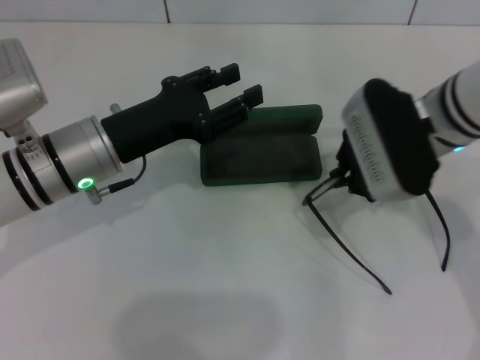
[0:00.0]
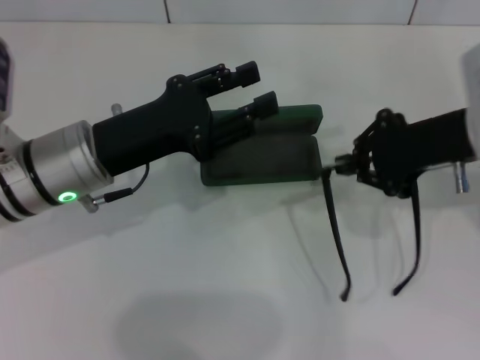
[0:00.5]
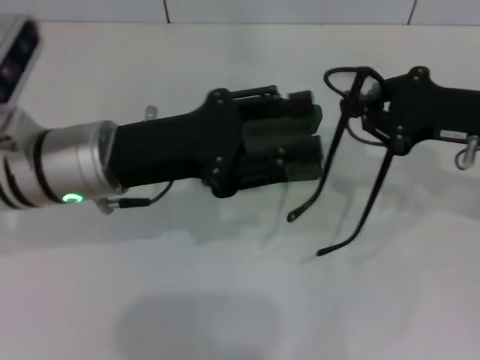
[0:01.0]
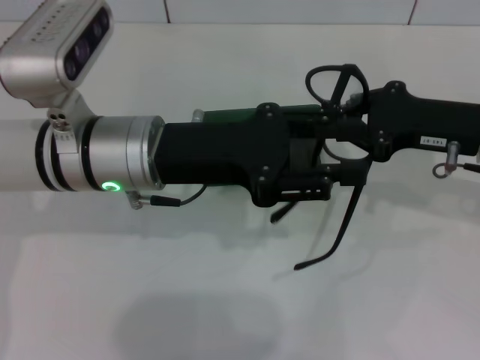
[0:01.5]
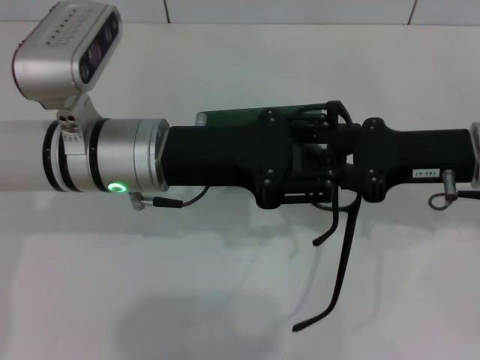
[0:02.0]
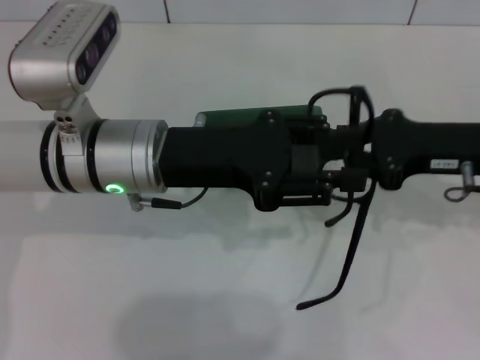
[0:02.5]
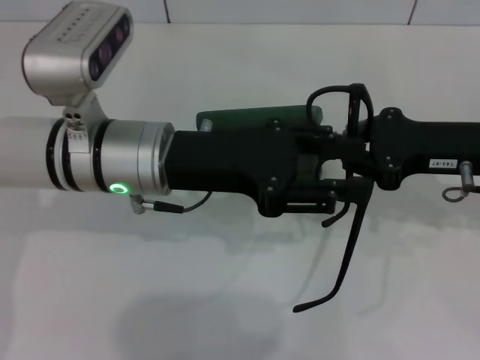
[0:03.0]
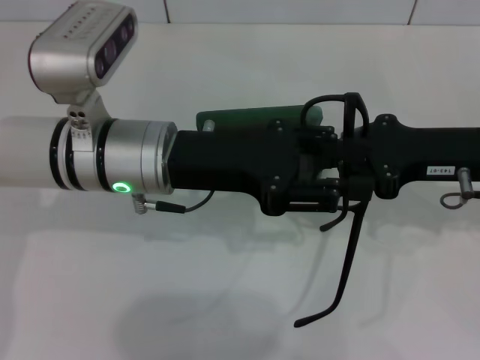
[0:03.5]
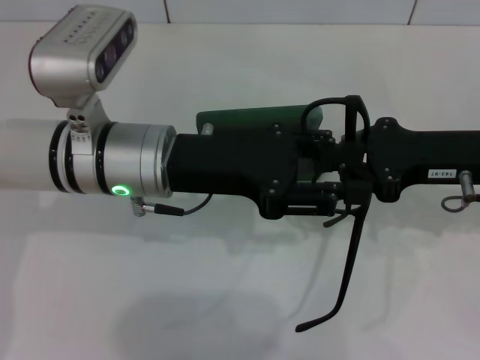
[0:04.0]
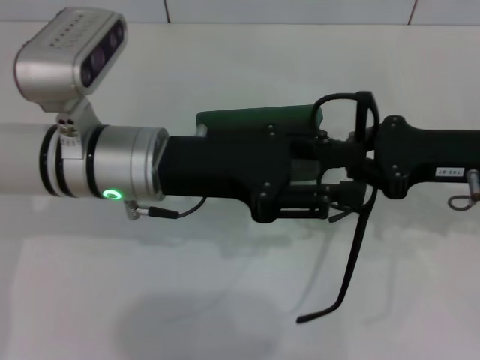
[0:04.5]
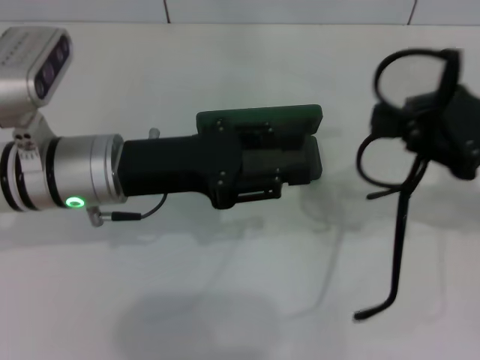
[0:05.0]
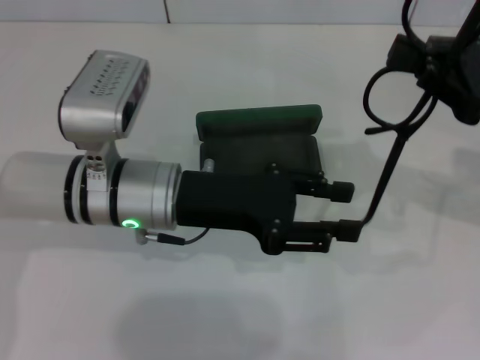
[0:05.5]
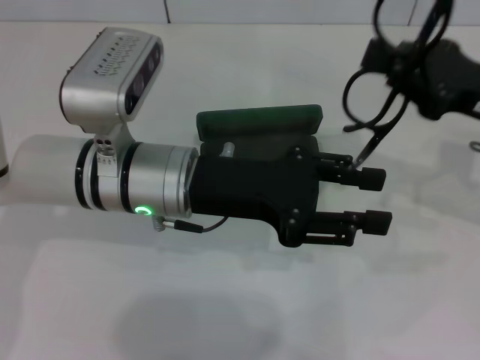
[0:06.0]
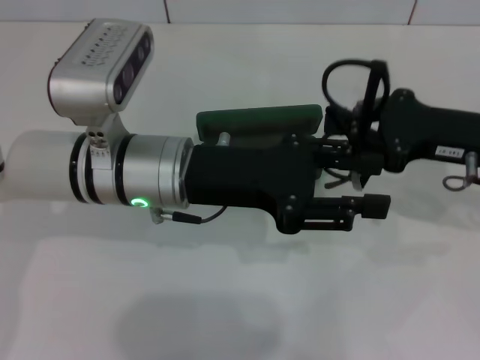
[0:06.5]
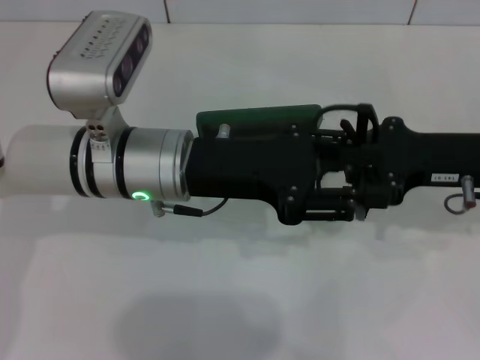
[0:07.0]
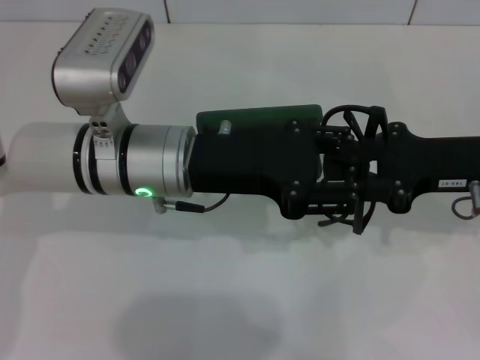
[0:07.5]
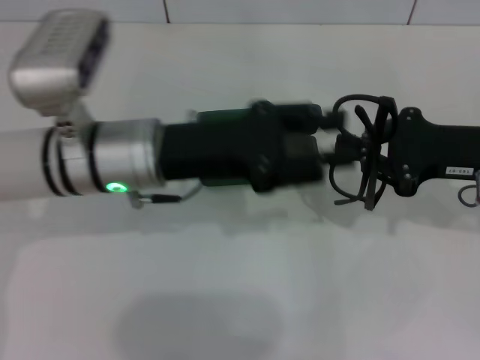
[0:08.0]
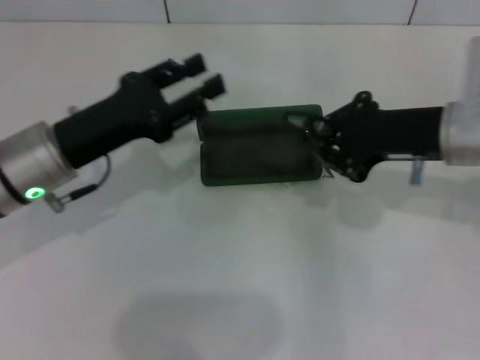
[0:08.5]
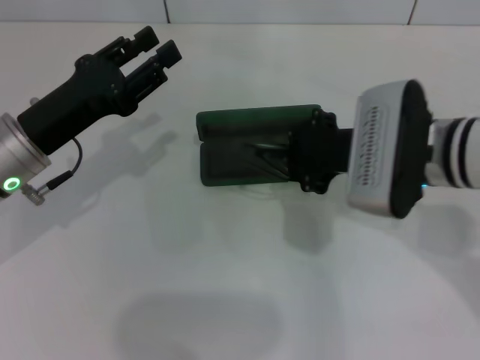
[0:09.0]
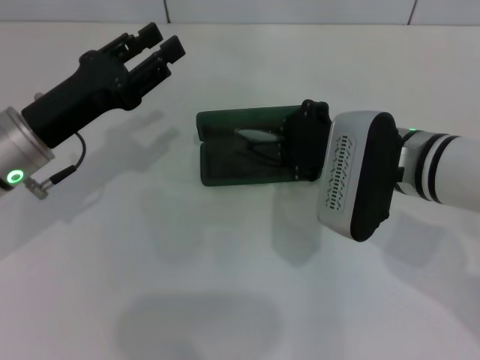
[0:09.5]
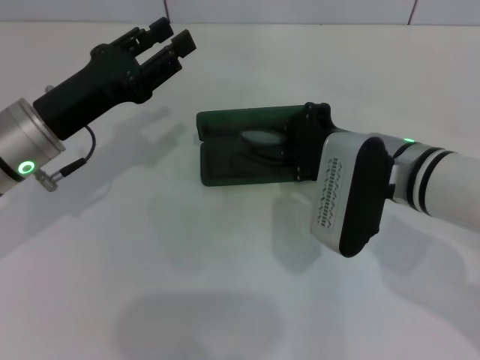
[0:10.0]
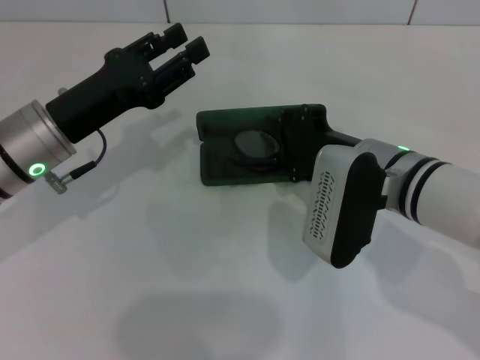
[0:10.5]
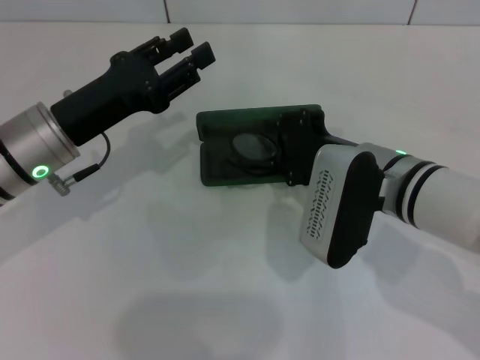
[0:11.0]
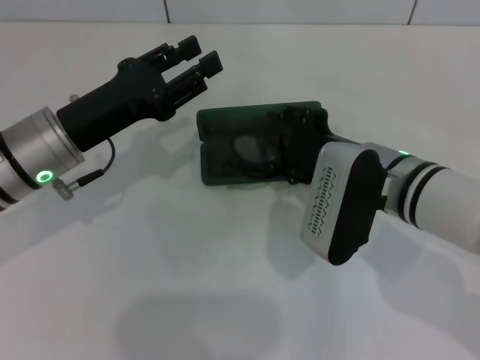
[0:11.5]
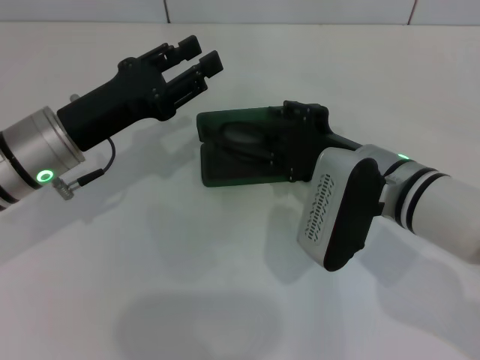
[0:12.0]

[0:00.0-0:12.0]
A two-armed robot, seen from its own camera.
Step, 0:00.0 to 0:07.0: Fold the frame with your left hand.
0:00.0 to 0:02.0: The grippers both shift to the right by about 5 cm.
0:02.0 to 0:04.0: There are only small adjustments of the grippers.
0:08.0 to 0:10.0: The grippers both shift to the left by roughly 10 cm.
0:10.0 to 0:12.0: The right gripper opens up.

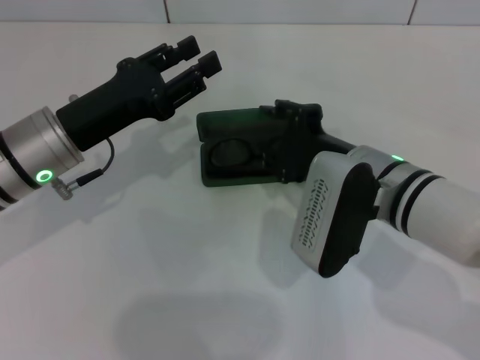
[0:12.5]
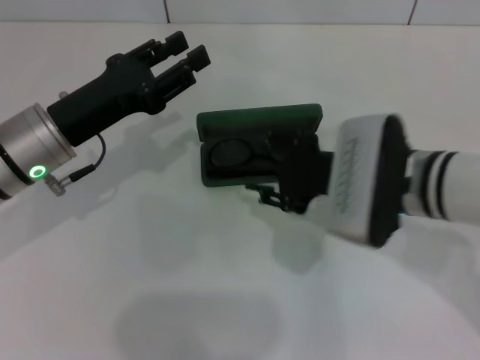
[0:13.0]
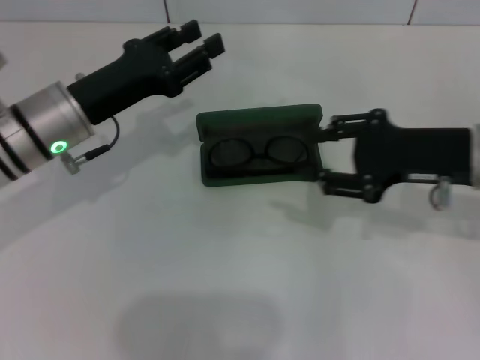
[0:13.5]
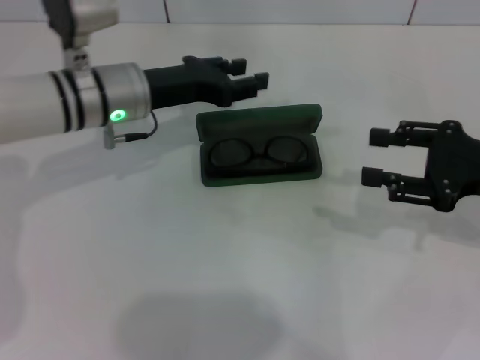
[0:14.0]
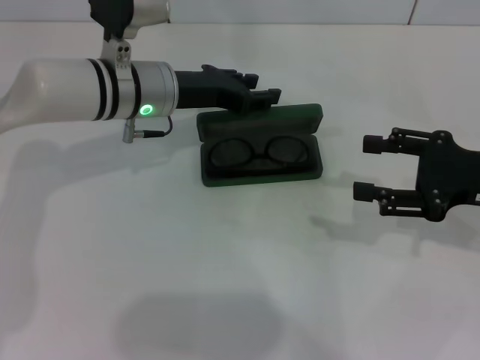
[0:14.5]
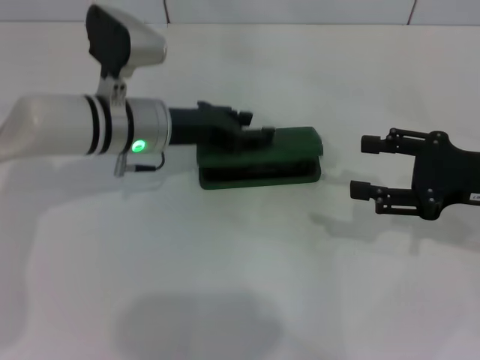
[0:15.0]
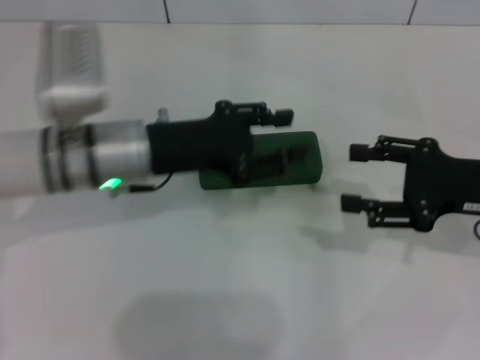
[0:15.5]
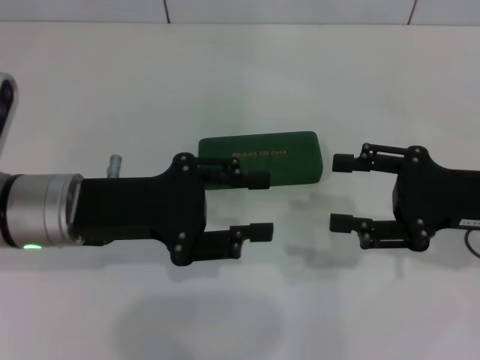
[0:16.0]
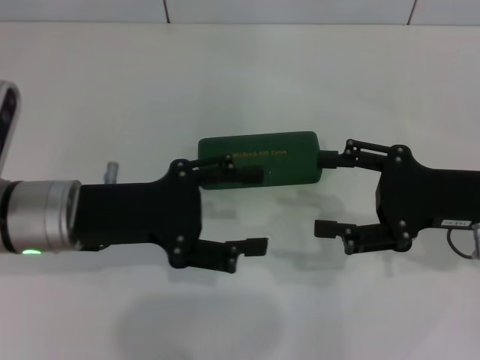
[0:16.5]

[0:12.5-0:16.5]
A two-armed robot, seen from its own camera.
Step, 0:12.5 to 0:15.0: Close the glasses case with your left hand.
0:12.5 to 0:14.5: The left gripper heads forward and to the right, covering about 10 cm, while the right gripper heads to the right, covering roughly 15 cm.
0:14.5 to 0:16.5: The left gripper travels backward and to the left by some 15 cm, and opens up.

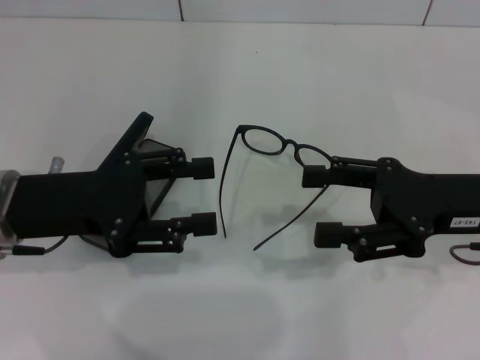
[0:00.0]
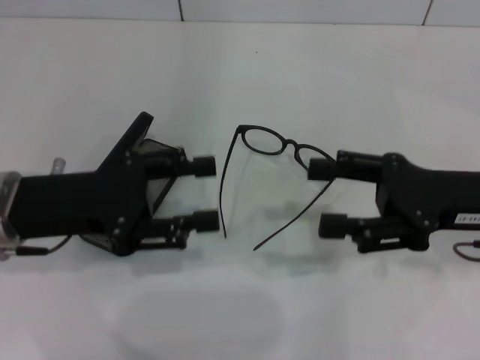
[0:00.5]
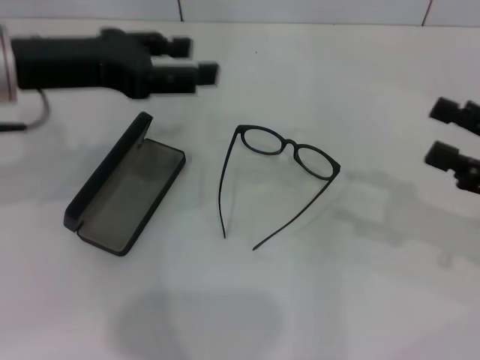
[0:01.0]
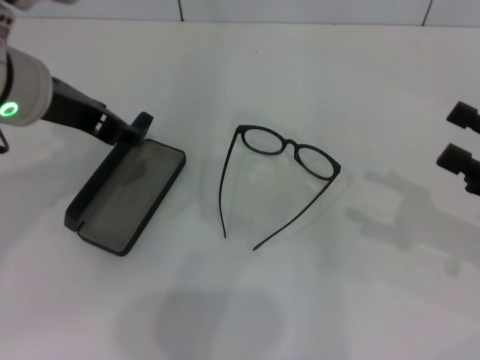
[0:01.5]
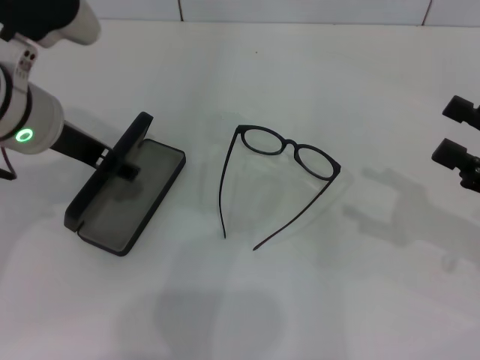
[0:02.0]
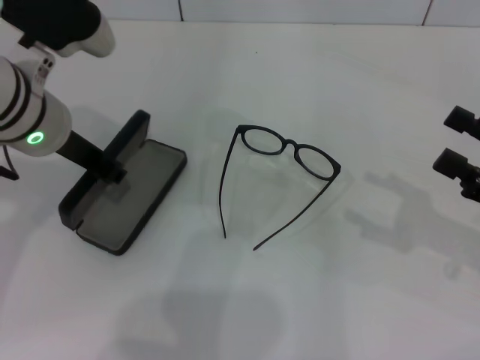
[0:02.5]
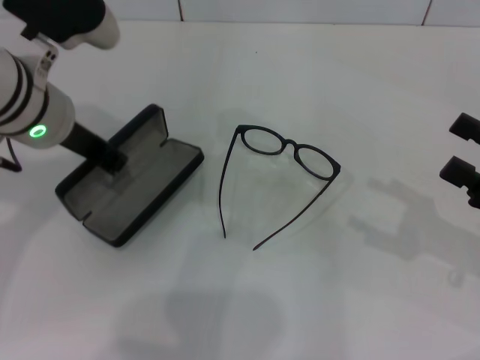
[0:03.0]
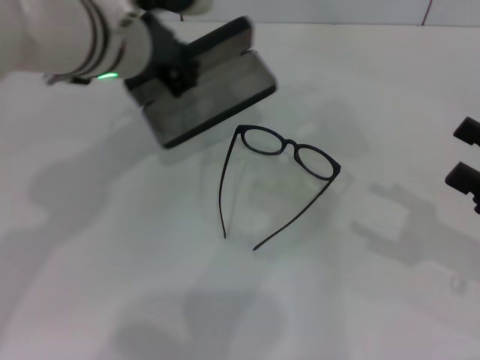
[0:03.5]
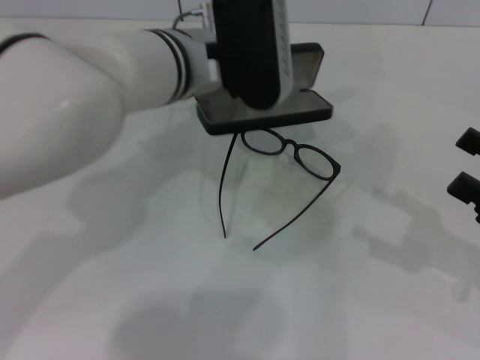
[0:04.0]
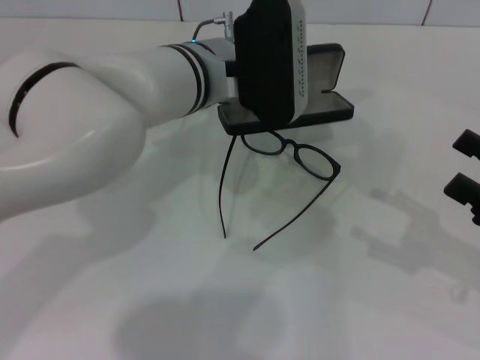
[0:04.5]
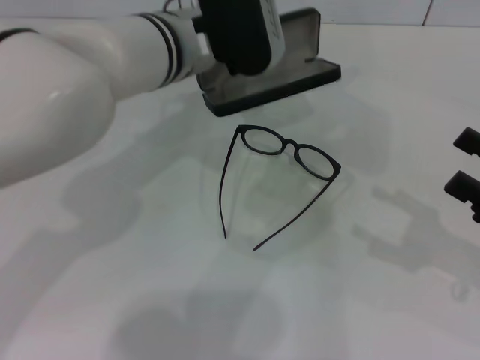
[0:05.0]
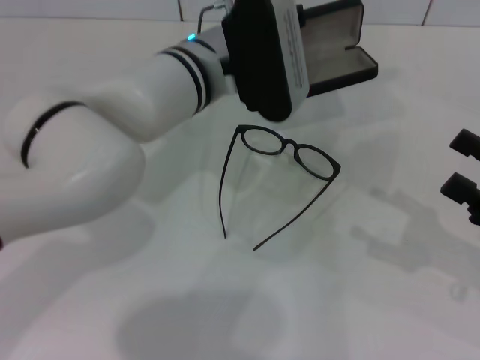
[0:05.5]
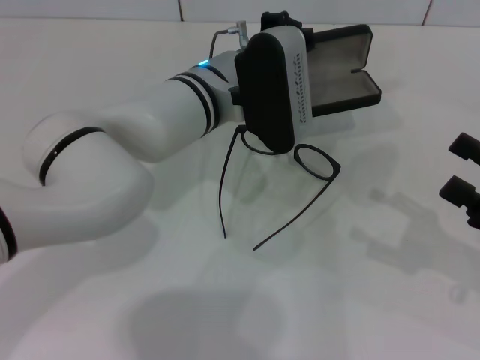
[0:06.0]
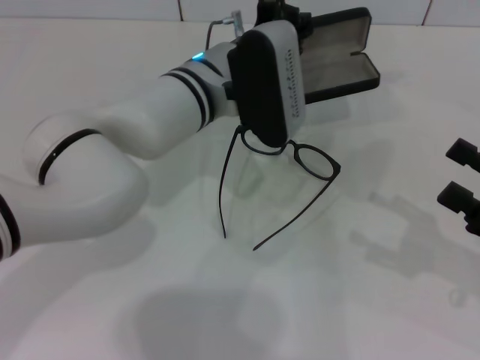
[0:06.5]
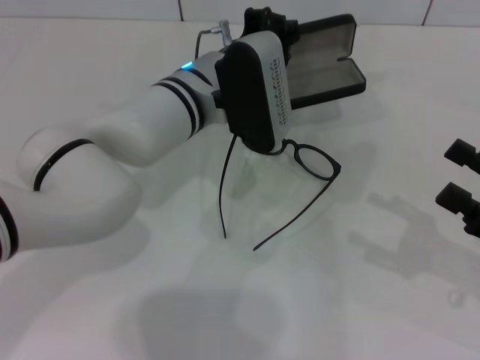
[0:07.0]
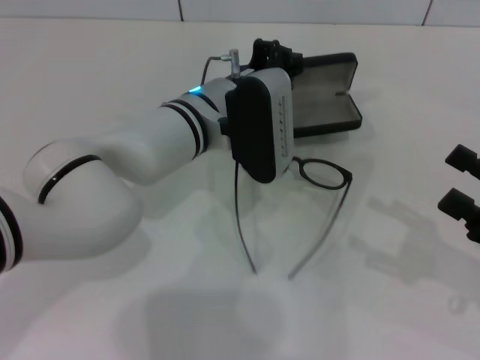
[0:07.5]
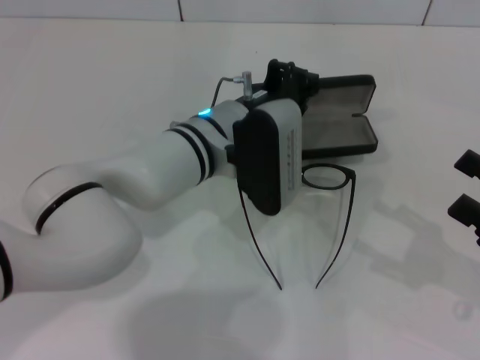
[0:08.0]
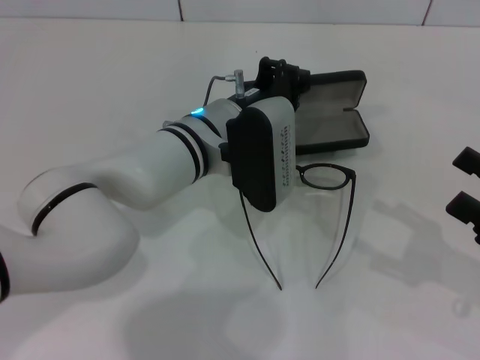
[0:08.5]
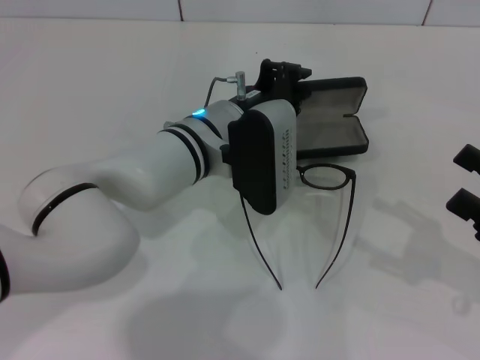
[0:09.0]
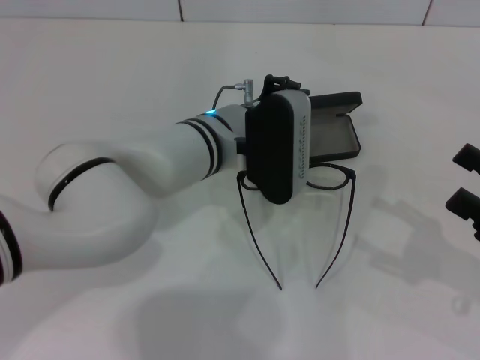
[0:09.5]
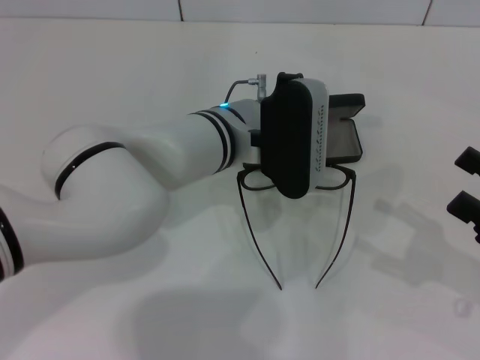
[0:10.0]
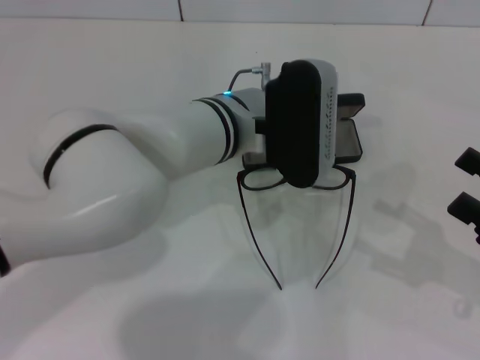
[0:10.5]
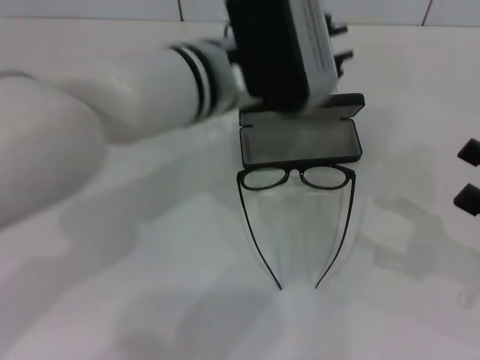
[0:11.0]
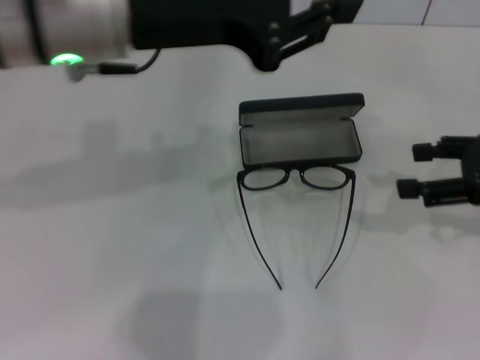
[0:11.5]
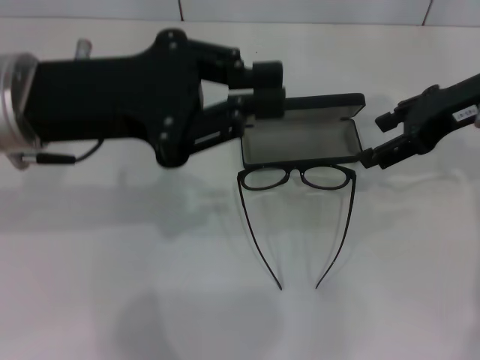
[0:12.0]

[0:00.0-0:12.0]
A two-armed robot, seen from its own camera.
Step, 0:00.0 to 0:02.5: Grab the glasses case with your left hand.
Step, 0:03.0 to 0:10.5: Place the glasses case in the center of the table with your left hand.
0:00.0 to 0:02.0: The right gripper moves to the right, about 10 cm, while the left gripper moves forward and upward, roughly 10 cm.
0:02.0 to 0:04.0: The left gripper moves to the right, some 10 cm, and closes up.
0:04.0 to 0:06.0: The left gripper is displaced downward by some 5 cm.
0:08.0 to 0:10.0: The grippers stay close to where they were, moving slightly.
0:10.0 to 0:12.0: The right gripper shifts roughly 25 cm forward, upward and to the left. The left gripper travels to the left, upward and backward by approximately 20 cm.
